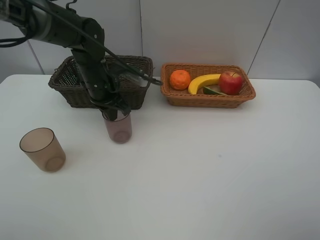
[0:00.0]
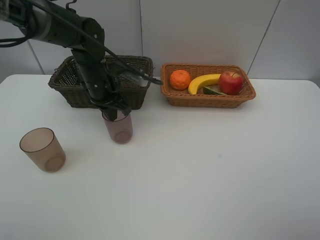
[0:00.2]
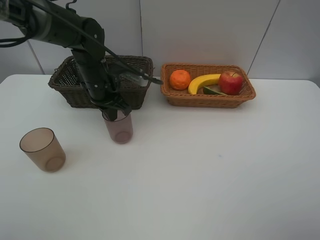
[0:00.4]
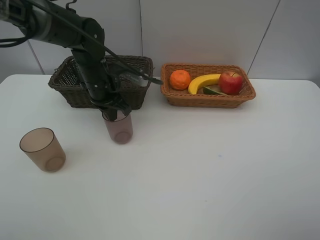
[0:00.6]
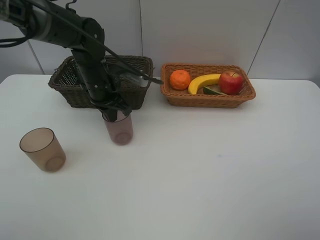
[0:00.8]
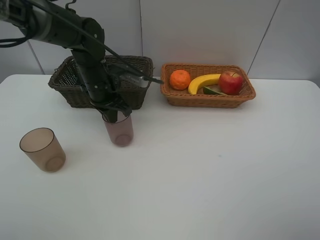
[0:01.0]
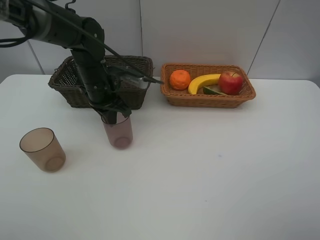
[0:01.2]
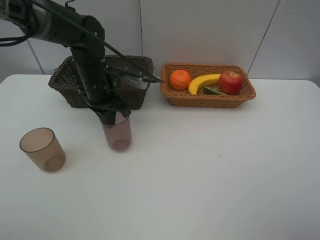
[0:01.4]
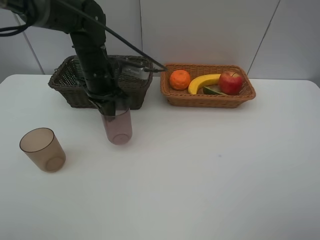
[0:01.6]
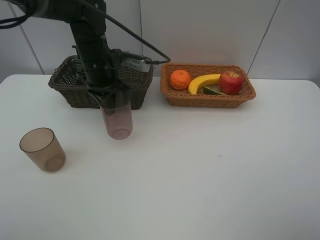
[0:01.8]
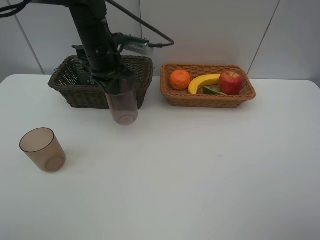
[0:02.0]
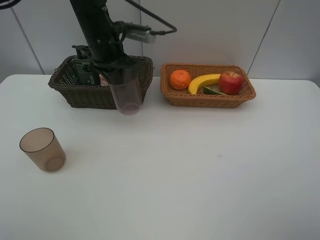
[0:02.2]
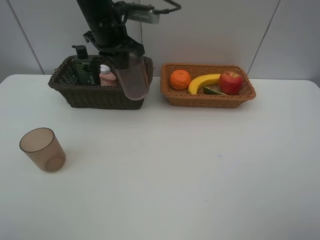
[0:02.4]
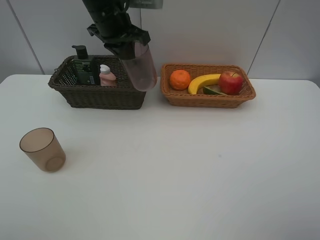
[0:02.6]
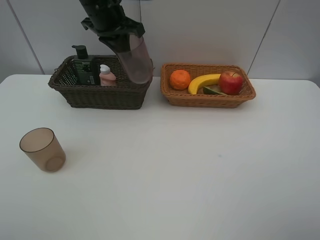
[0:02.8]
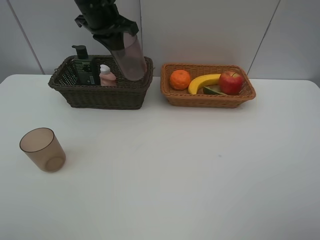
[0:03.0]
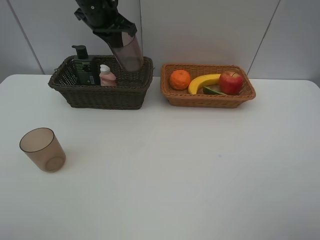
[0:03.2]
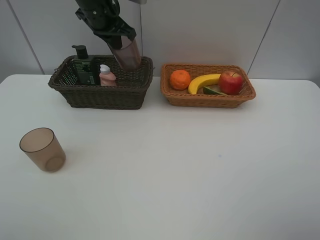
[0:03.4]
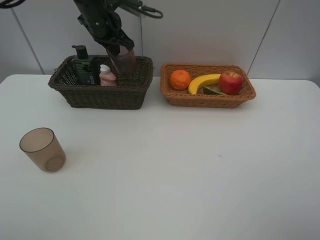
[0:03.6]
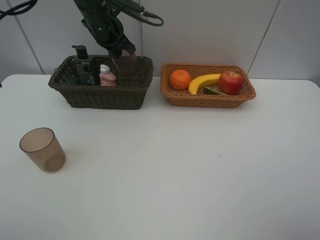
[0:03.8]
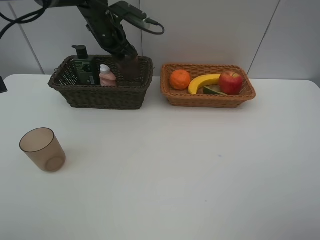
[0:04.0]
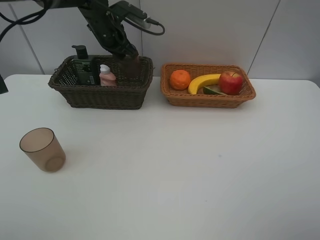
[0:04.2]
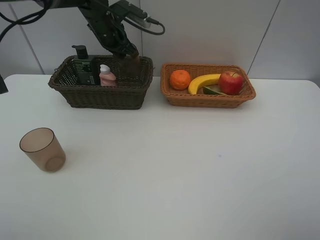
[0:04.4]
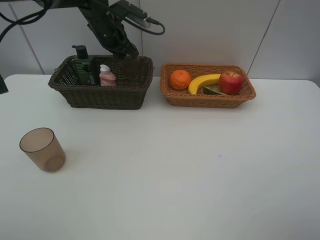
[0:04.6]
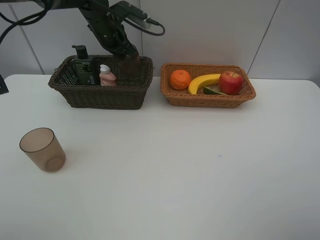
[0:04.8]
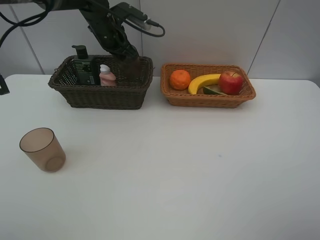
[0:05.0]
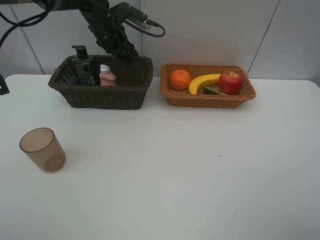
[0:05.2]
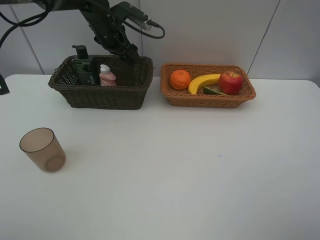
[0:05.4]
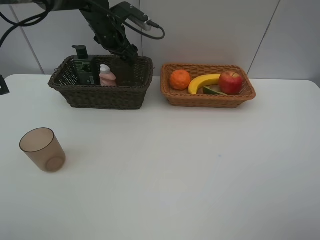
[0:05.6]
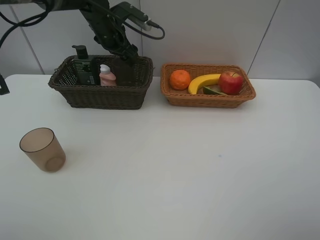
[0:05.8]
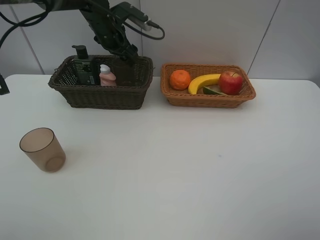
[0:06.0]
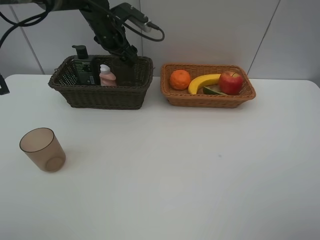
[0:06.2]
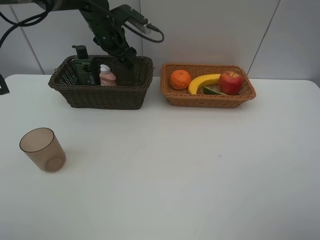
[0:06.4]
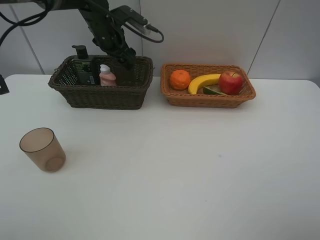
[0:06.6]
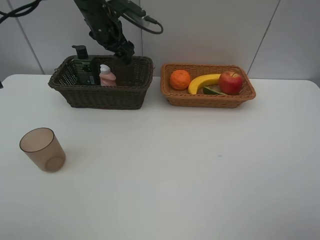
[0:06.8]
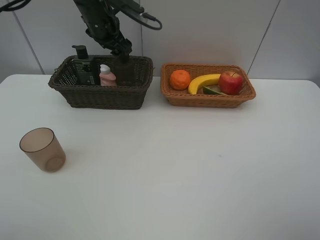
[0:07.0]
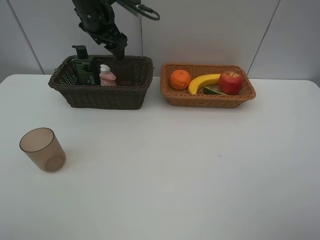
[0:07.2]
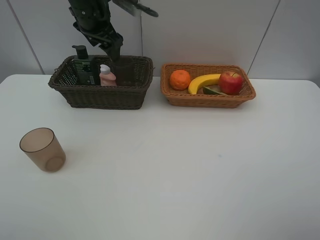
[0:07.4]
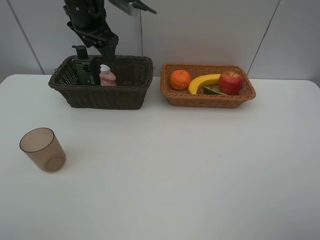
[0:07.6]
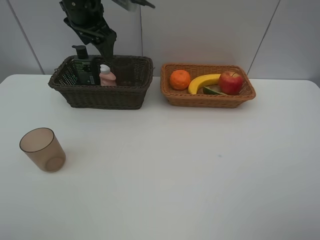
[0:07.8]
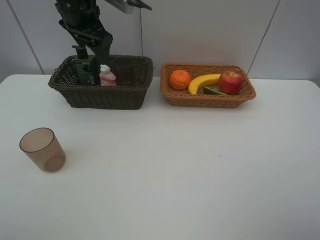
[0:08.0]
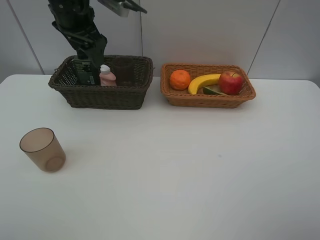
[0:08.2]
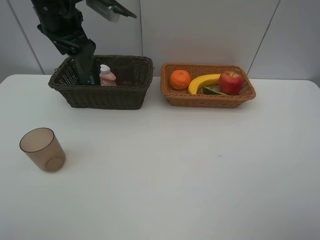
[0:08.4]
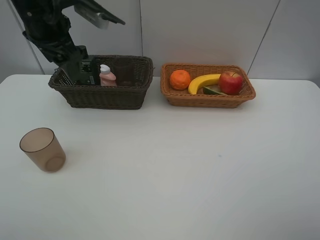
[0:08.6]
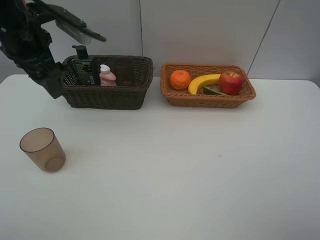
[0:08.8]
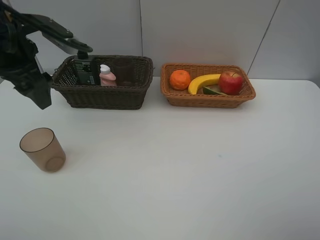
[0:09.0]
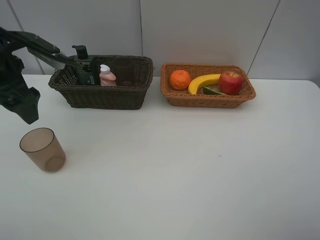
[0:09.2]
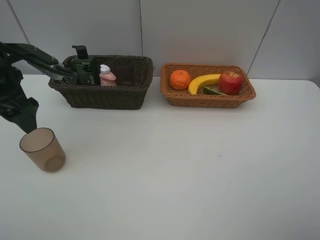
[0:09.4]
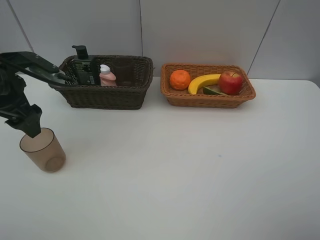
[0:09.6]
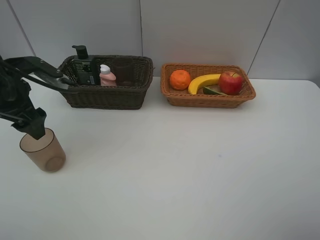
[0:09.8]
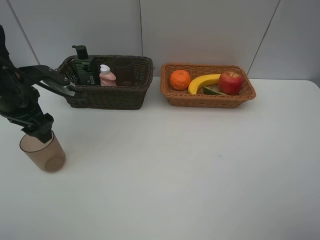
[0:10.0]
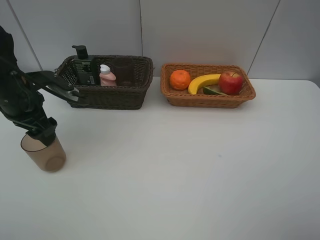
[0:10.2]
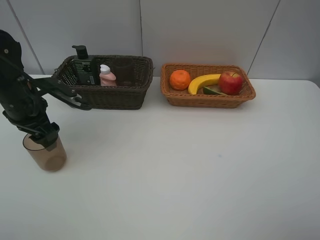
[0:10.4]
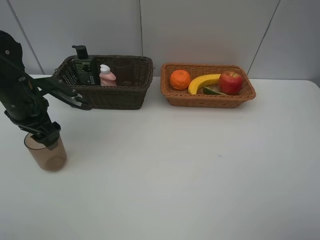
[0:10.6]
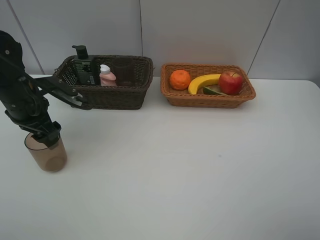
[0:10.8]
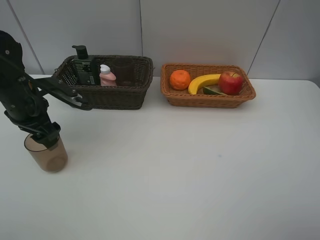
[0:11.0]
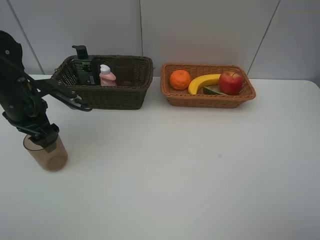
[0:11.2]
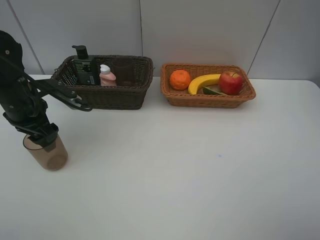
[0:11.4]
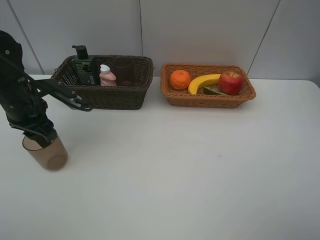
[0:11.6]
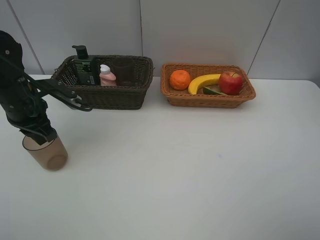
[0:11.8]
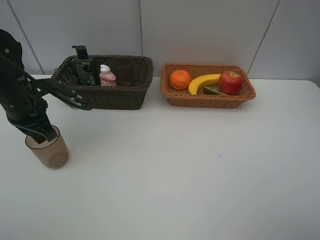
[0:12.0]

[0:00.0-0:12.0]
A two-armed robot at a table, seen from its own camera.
Task of the whole recording: Place multiple objects separately in different baskets.
Step, 0:01.6 to 0:06.4: Place the red cup in the dark basket with left gripper.
0:00.0 to 0:01.6: The grippers move only a little.
0:01.6 to 0:03.0: The left gripper goes approximately 10 cm upward and forward.
0:03.0 to 0:04.4: The left gripper shifts approximately 10 cm downward and forward.
0:04.4 to 0:06.0: The left gripper opens its fingers.
0:06.0 to 0:07.6: The left gripper is displaced upward and backward by about 10 cm.
0:07.6 to 0:09.0: The left gripper moves backward and to the left, about 15 cm.
0:09.0 to 0:10.4: The left gripper moves downward, about 10 cm.
0:10.4 to 0:12.0: The left gripper closes its fingers.

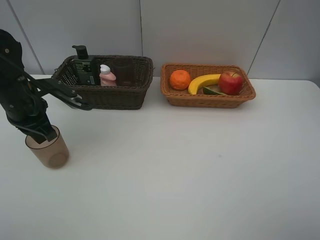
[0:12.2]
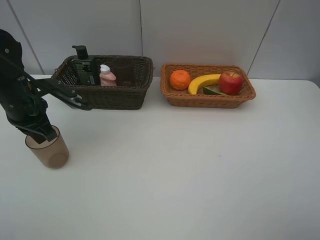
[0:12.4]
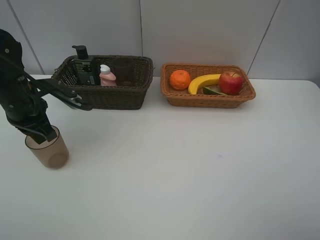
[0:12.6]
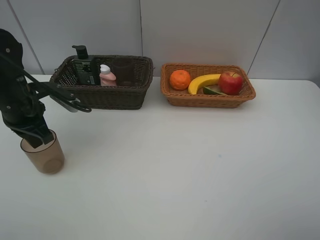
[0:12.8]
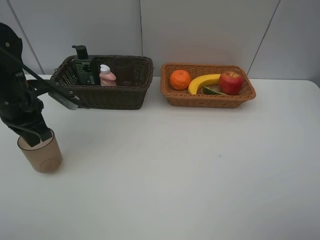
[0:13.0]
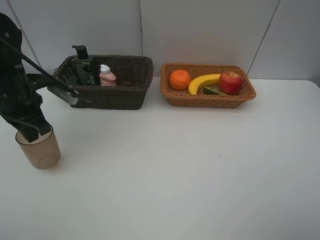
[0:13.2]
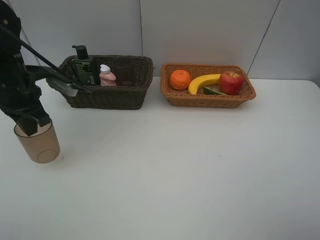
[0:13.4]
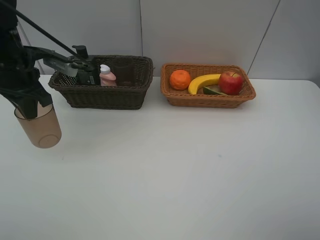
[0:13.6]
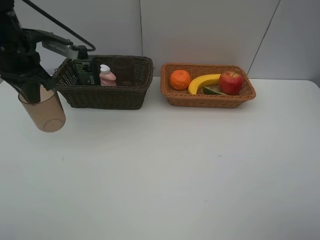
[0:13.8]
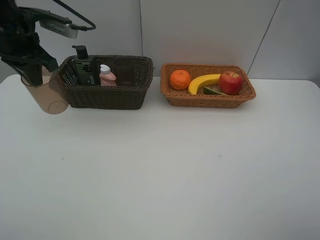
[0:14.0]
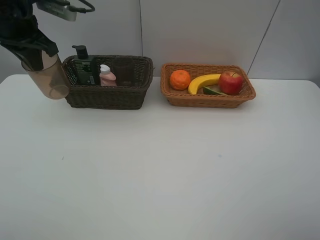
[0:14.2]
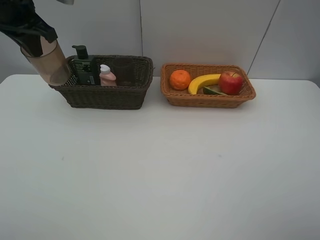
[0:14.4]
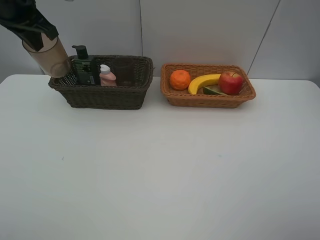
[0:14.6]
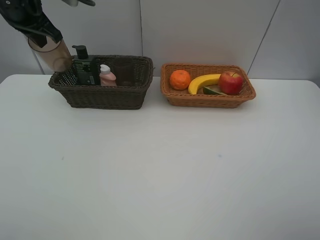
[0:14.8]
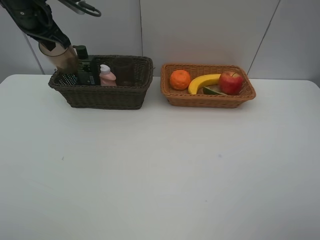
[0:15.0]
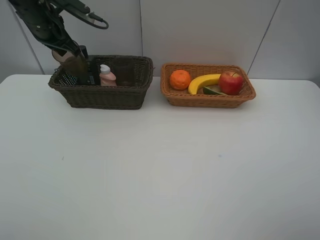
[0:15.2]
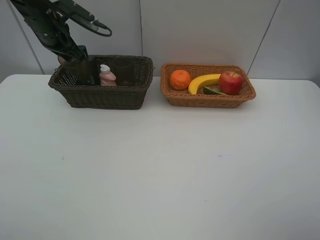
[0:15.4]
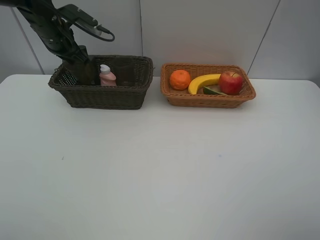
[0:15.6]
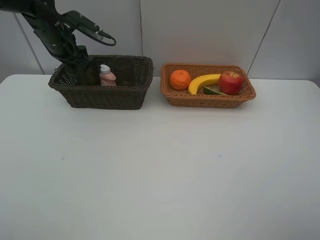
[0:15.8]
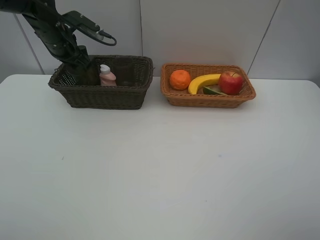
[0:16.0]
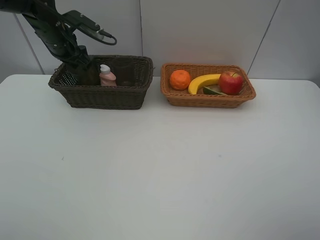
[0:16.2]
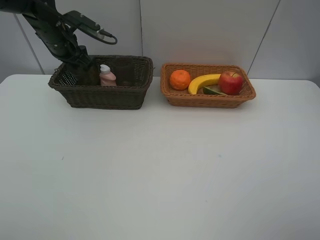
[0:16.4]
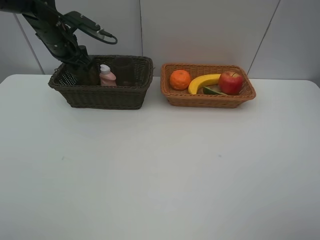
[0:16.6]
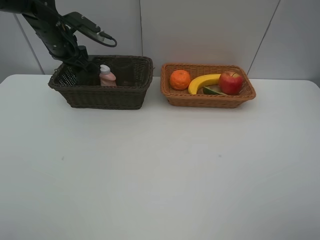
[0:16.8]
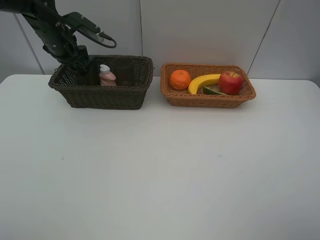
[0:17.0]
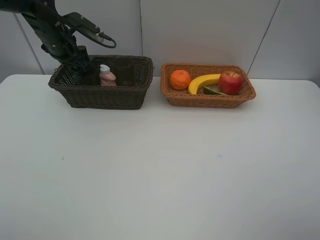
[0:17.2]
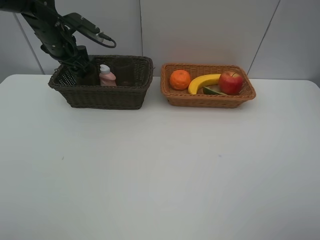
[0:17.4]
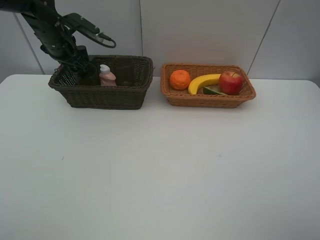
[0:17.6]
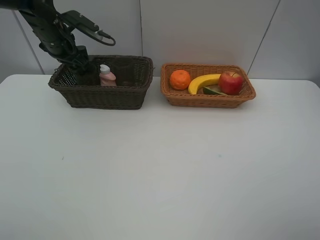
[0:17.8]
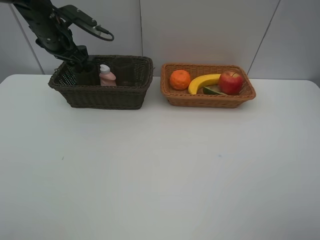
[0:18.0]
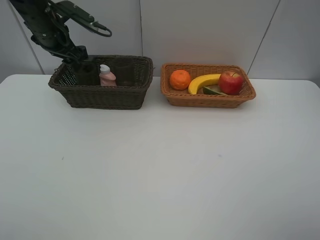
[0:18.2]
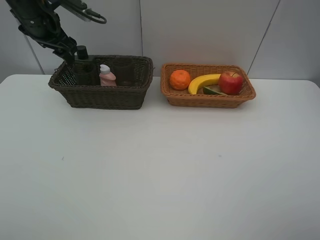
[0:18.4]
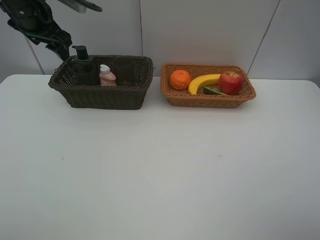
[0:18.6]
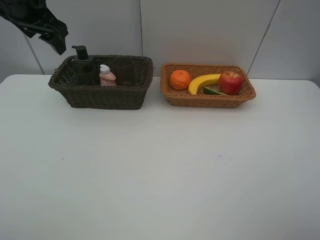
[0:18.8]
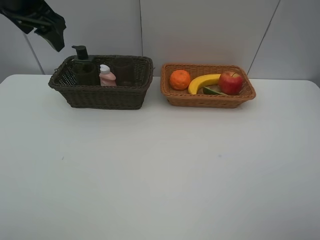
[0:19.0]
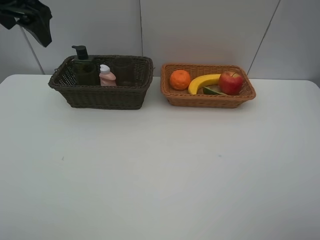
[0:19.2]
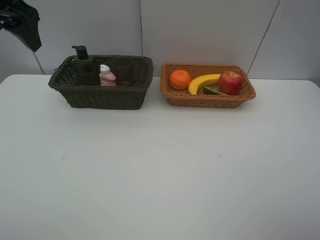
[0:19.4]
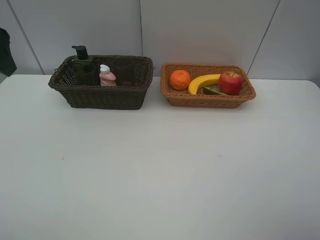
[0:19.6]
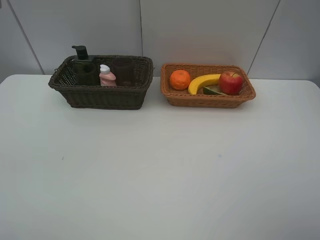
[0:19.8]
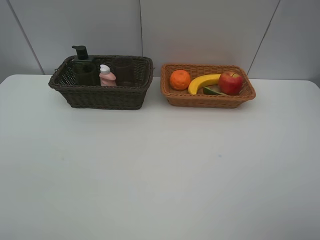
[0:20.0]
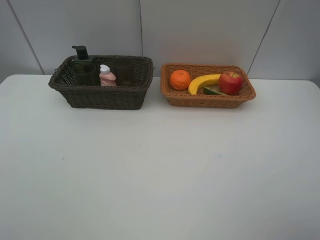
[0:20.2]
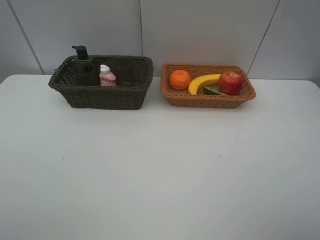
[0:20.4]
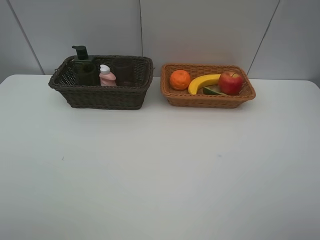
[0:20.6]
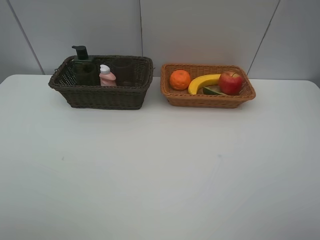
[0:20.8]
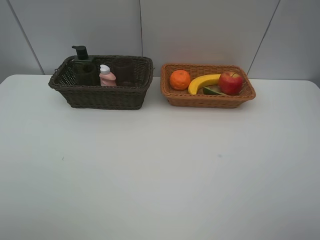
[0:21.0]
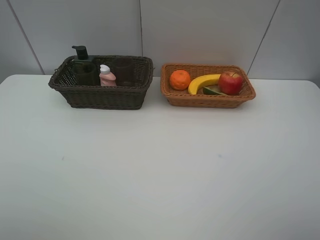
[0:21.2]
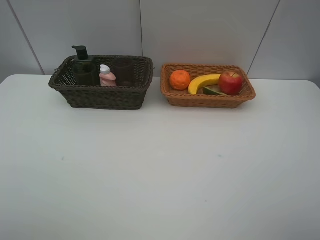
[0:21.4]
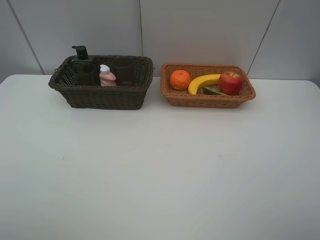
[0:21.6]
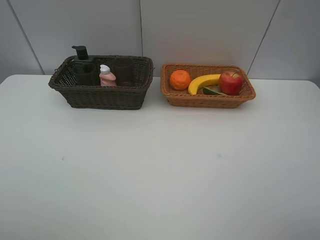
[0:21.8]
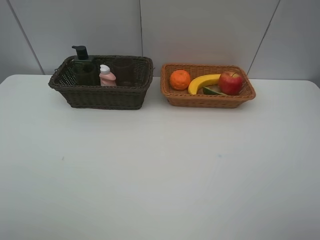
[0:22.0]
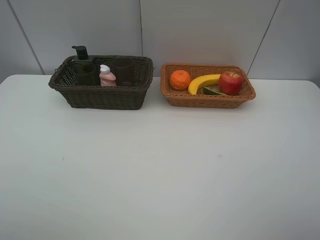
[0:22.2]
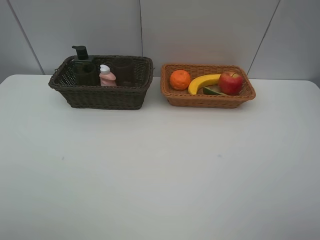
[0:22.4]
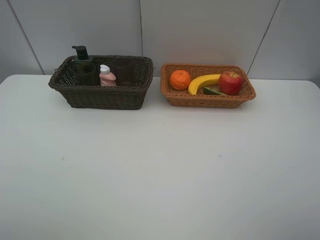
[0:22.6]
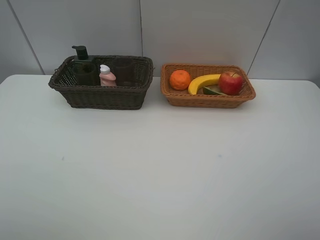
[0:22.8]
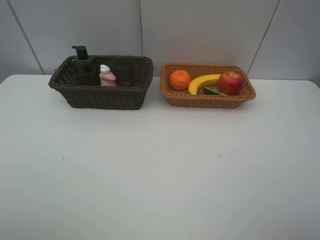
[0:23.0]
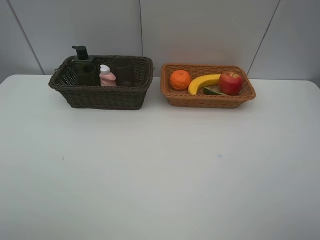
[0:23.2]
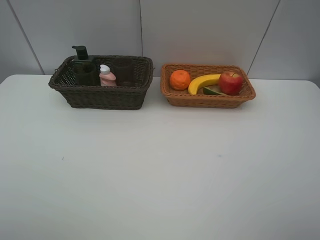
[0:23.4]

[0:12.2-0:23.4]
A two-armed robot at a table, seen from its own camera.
Task of the whole recording: Place multiple objects separately in different baskets.
Step, 0:13.4 to 0:17.8: Place the light brown cup in the dark basket with left gripper.
0:12.2 to 0:13.8: The left gripper is displaced upward by approximately 10 cm.
0:13.8 to 0:15.4: The left gripper travels forward by approximately 10 cm.
0:15.4 to 0:17.0: The left gripper opens.
0:17.0 to 0:18.6: The left gripper travels upward by some 10 cm.
0:18.6 to 0:20.2: The left gripper moves backward, roughly 30 cm.
